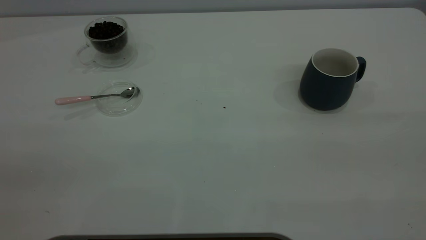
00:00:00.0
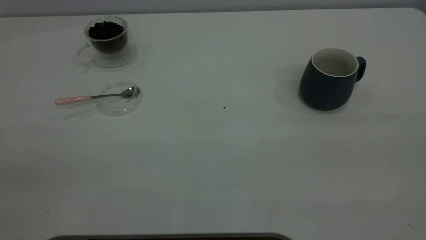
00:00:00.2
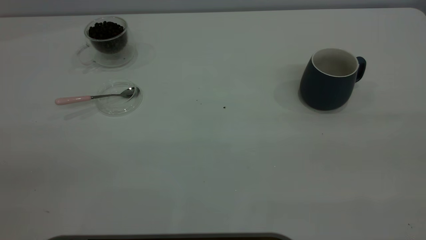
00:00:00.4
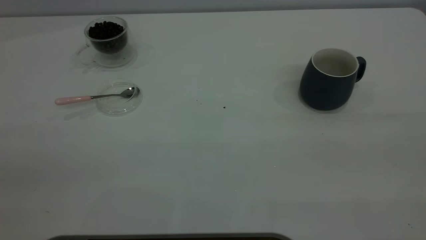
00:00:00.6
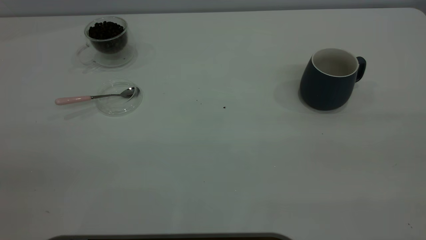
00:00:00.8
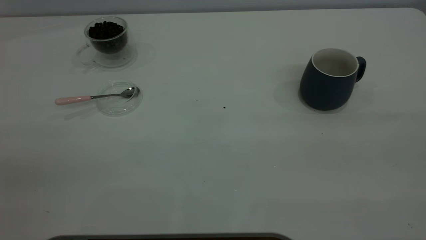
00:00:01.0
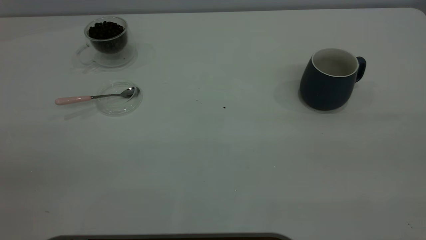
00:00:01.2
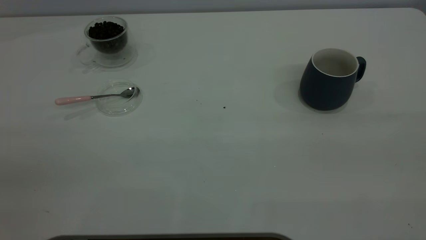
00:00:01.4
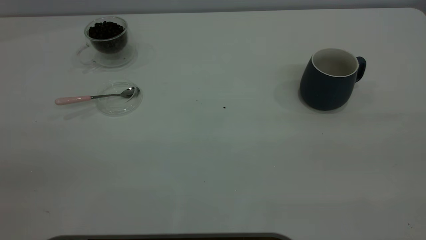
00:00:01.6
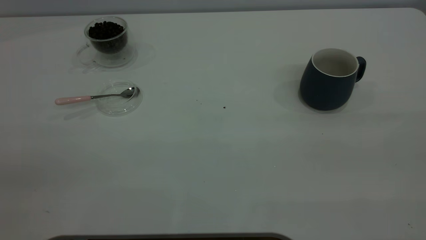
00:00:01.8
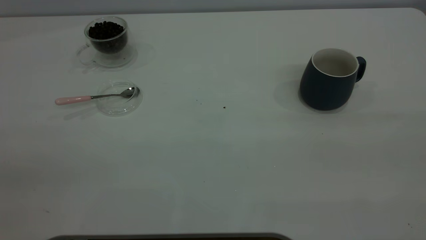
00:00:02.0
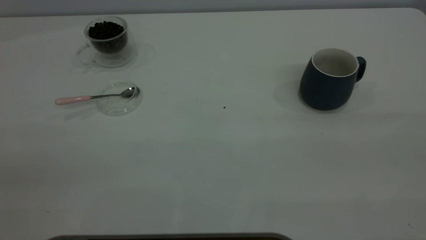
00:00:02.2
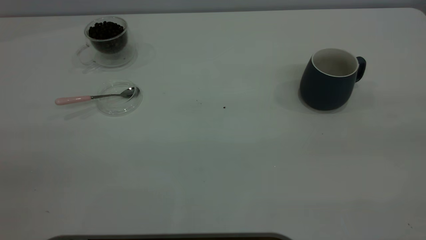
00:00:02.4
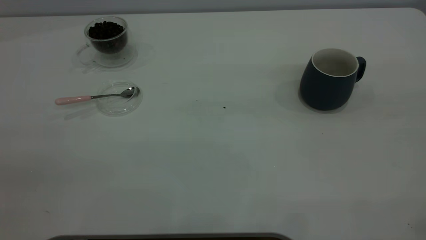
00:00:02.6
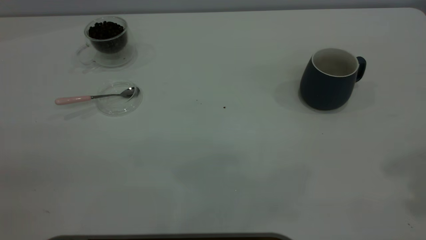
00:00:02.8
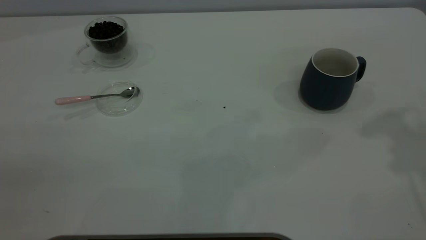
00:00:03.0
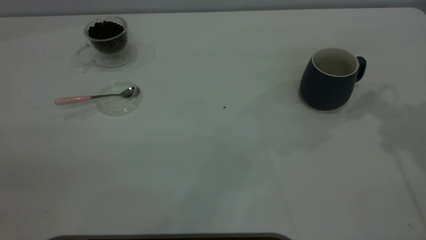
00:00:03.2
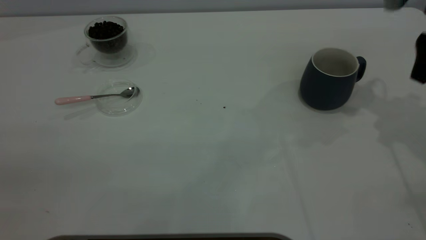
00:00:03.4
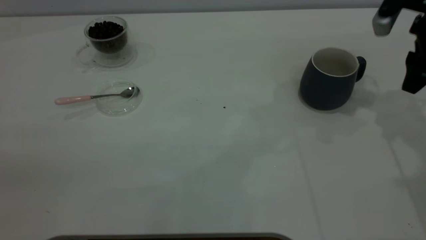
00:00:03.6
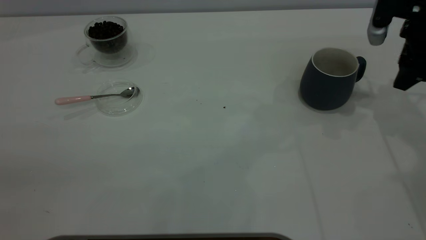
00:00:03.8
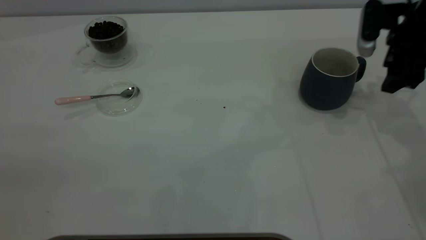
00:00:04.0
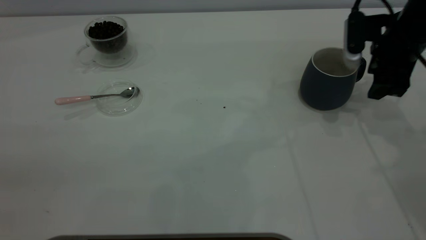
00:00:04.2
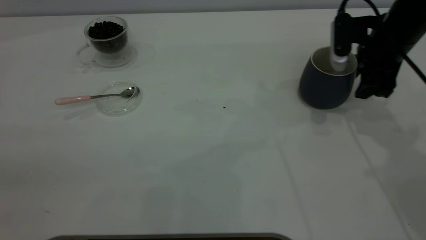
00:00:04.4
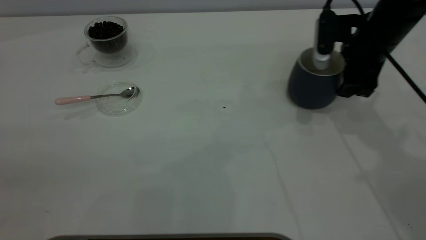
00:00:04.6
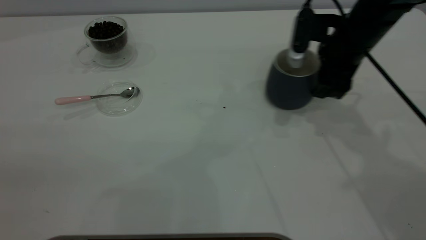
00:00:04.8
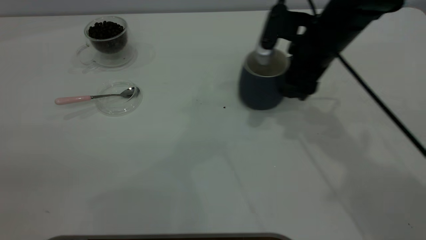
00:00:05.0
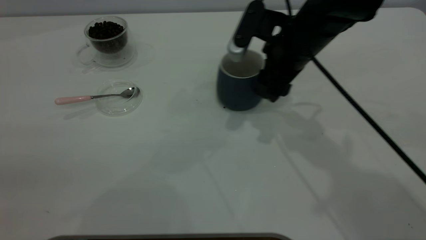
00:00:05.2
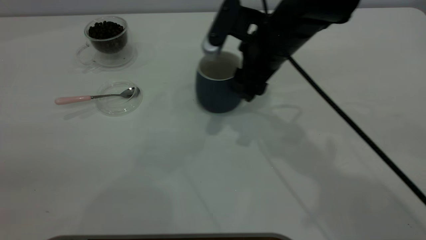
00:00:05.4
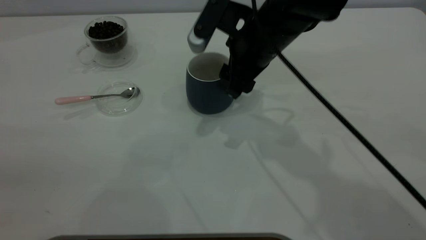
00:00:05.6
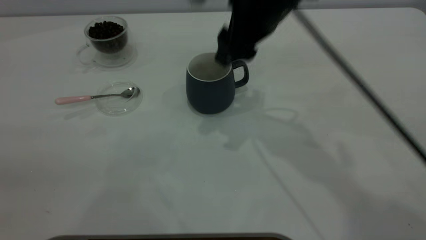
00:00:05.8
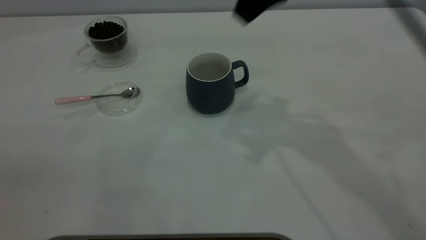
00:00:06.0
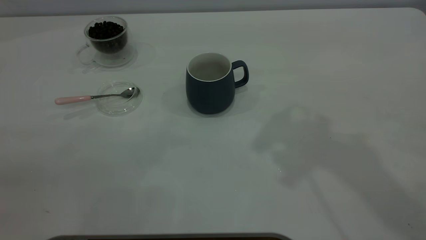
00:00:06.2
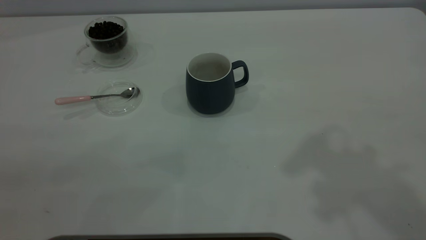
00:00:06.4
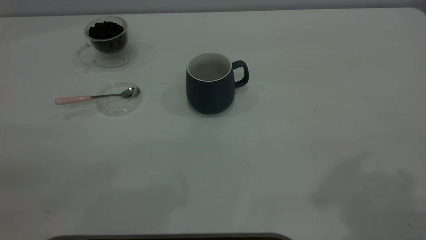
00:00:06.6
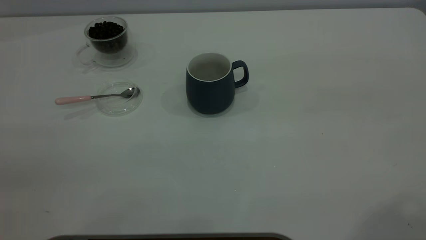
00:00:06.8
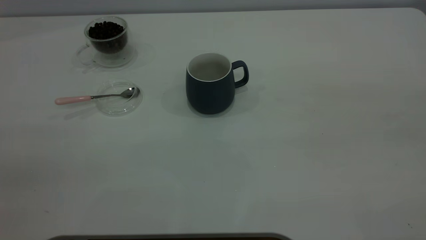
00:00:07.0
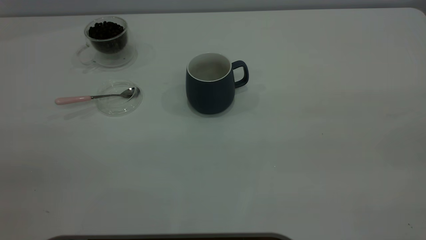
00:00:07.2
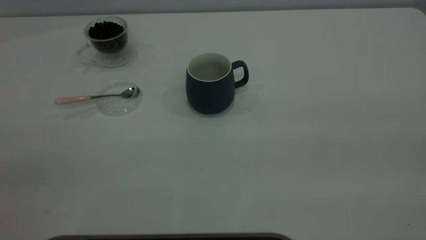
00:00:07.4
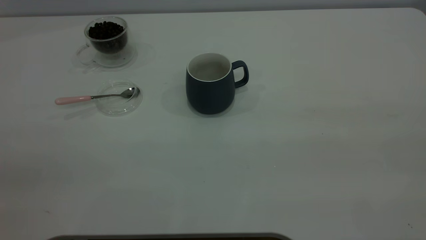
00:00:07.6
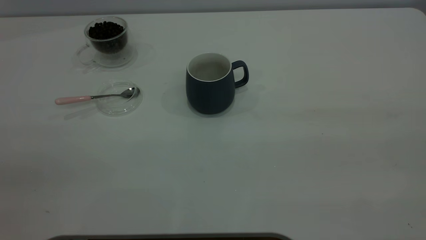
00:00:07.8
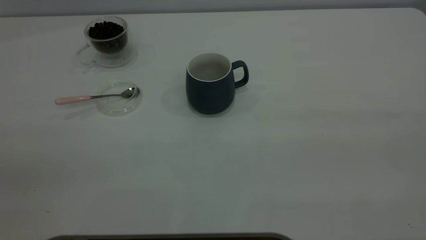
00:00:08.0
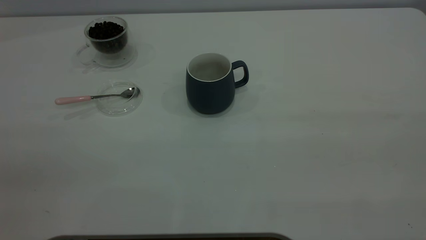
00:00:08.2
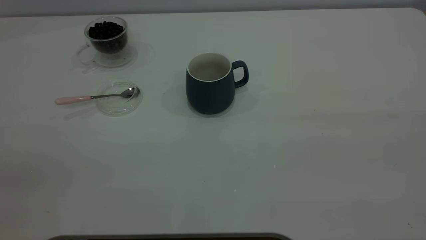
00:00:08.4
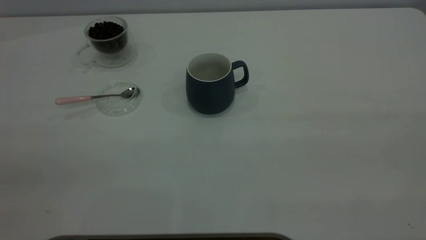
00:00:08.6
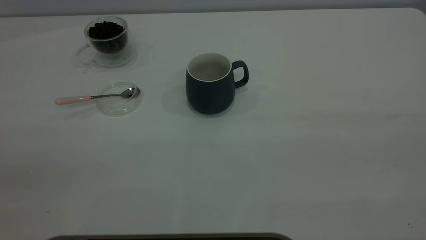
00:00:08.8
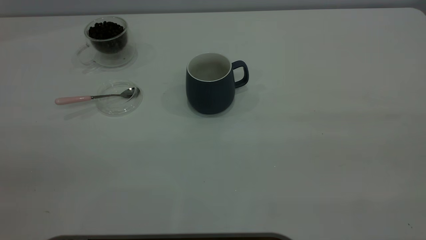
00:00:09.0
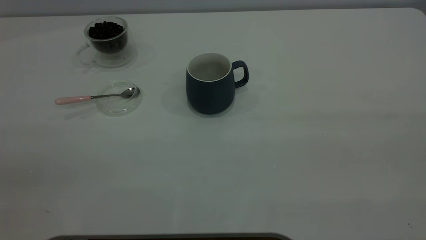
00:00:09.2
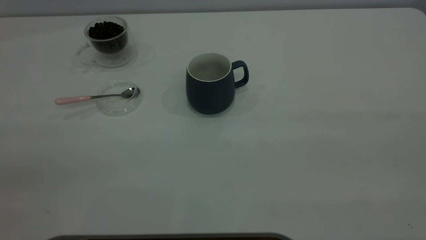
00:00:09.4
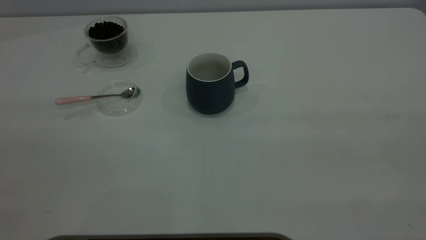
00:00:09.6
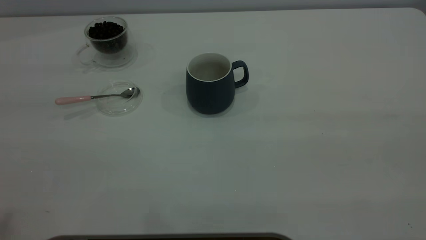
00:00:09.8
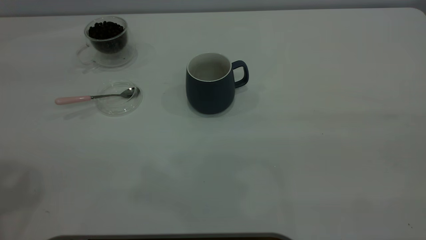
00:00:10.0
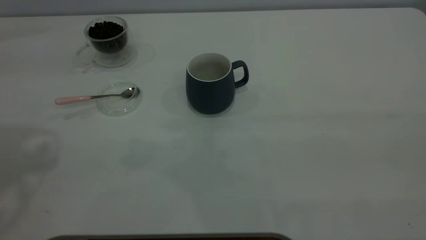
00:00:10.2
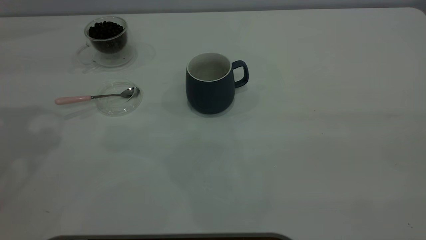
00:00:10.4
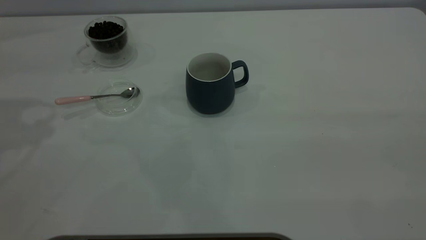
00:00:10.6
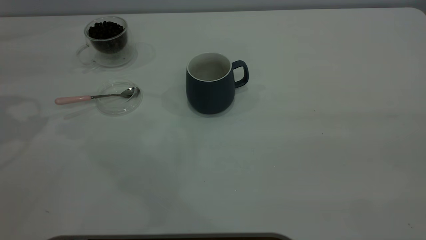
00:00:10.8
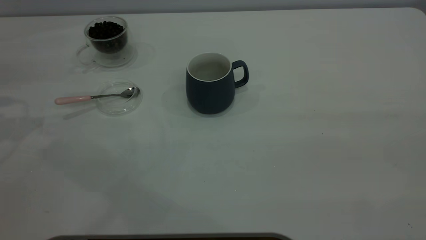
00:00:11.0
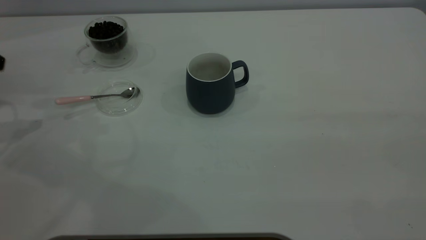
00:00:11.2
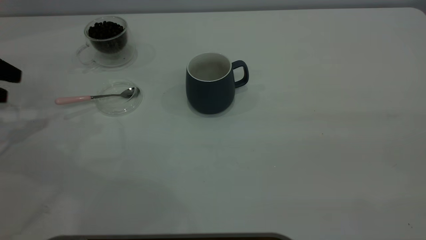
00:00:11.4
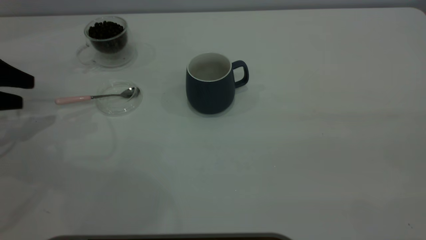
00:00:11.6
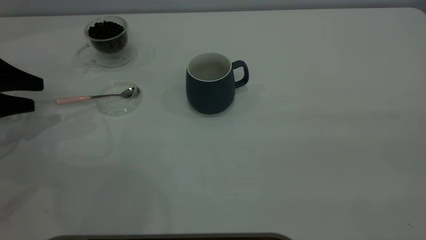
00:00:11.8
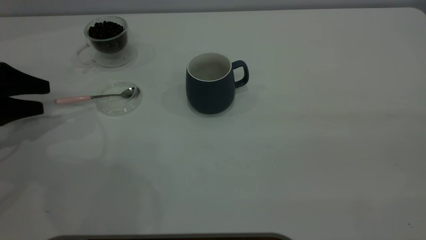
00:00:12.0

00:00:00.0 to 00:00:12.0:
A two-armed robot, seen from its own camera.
Task of the whole recording: the right gripper place the grey cup in the center of the table, the left gripper take the pink spoon from the cup lid and scoop out the coffee beans from the coffee cup and put them into the grey cup, the left gripper put the spoon back into the cup lid.
Step, 00:00:00.0 to 00:00:05.8: Move the cup to the center of view.
00:00:00.0 to 00:00:01.6: Neither gripper changes place.
00:00:03.0 to 00:00:04.4: The right gripper moves downward and forward, some 20 cm.
00:00:04.4 to 00:00:06.0: The right gripper heads upward and to the left, covering about 25 cm.
00:00:06.0 to 00:00:07.6: The right gripper goes roughly 35 cm backward and to the right.
00:00:10.4 to 00:00:12.0: The left gripper heads downward, covering some 25 cm.

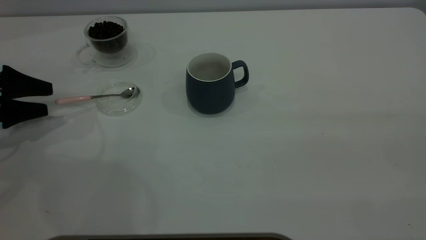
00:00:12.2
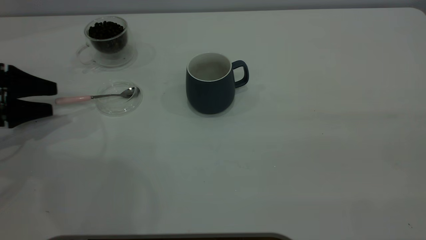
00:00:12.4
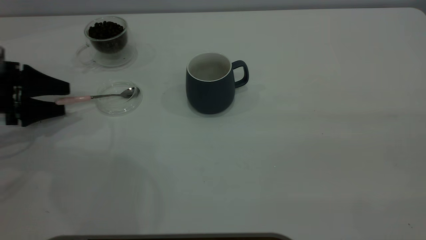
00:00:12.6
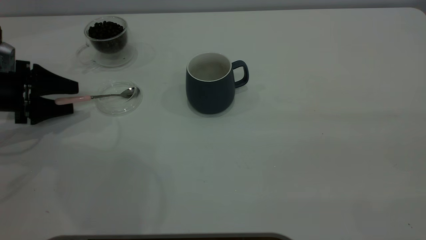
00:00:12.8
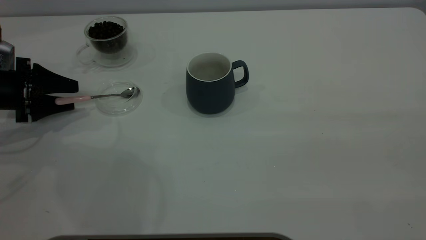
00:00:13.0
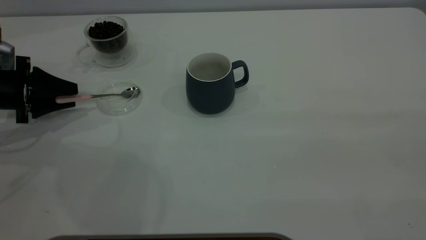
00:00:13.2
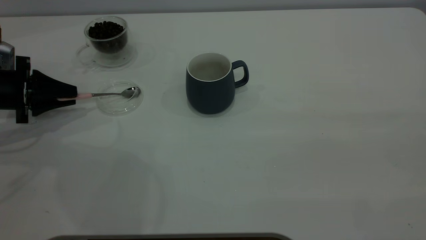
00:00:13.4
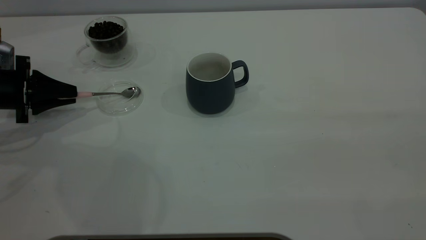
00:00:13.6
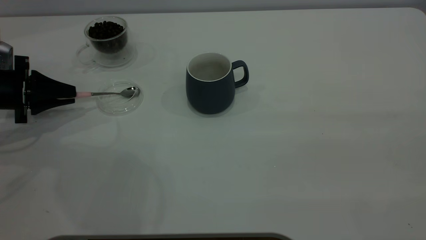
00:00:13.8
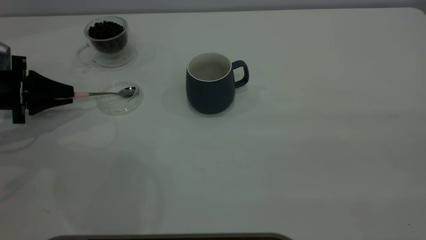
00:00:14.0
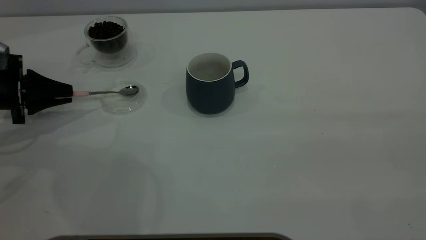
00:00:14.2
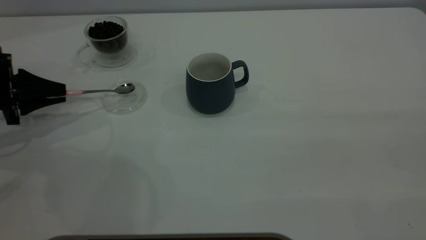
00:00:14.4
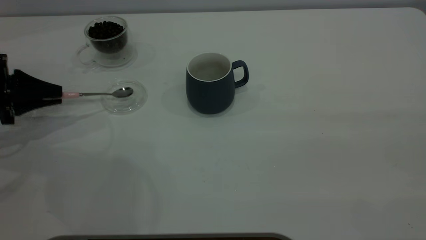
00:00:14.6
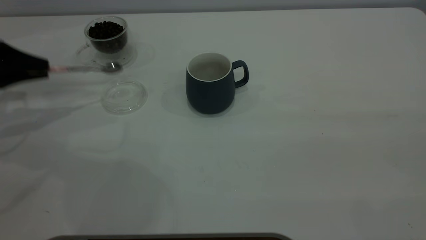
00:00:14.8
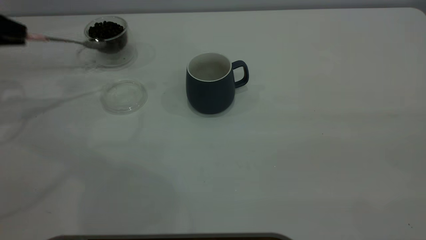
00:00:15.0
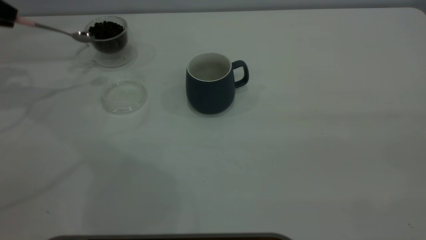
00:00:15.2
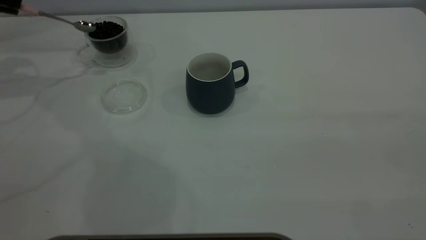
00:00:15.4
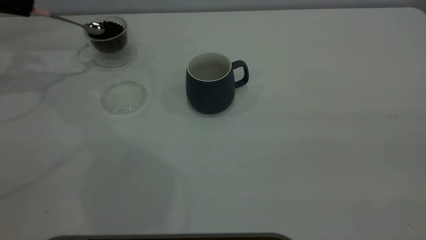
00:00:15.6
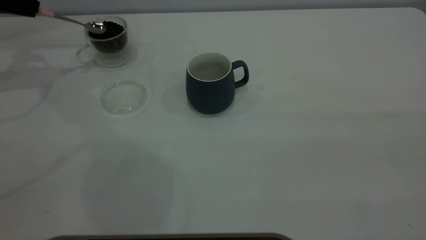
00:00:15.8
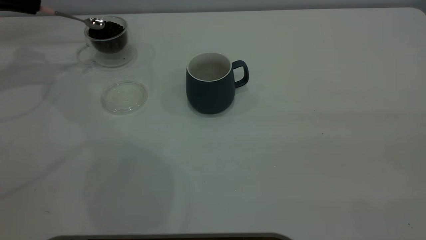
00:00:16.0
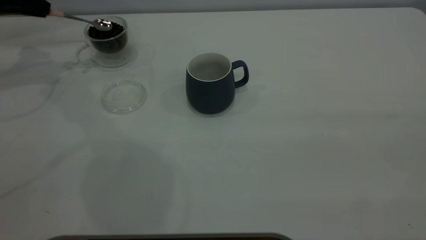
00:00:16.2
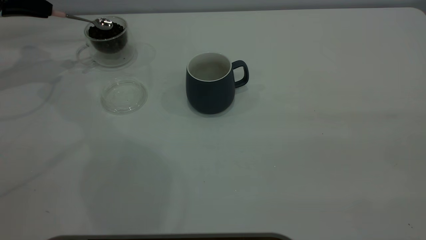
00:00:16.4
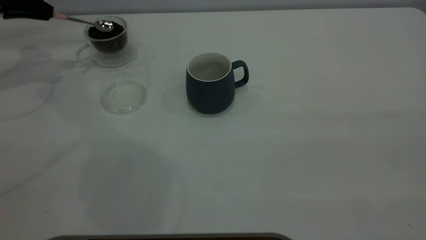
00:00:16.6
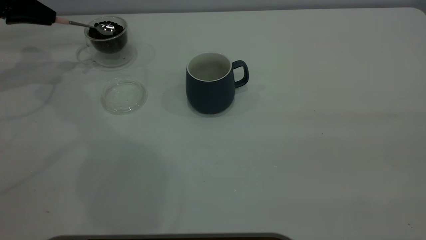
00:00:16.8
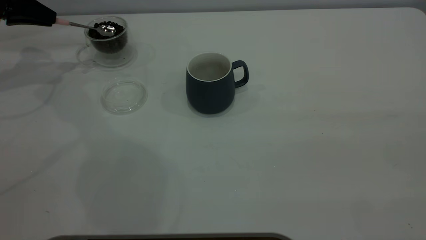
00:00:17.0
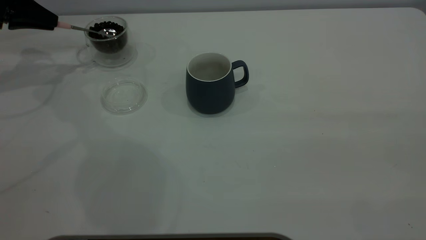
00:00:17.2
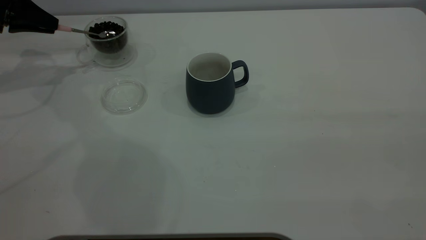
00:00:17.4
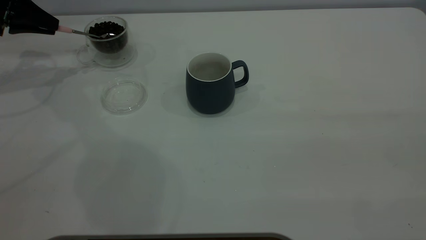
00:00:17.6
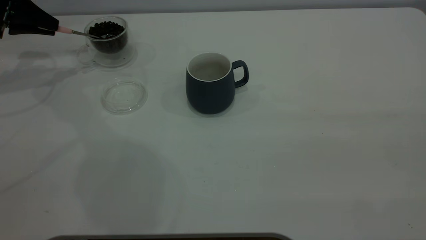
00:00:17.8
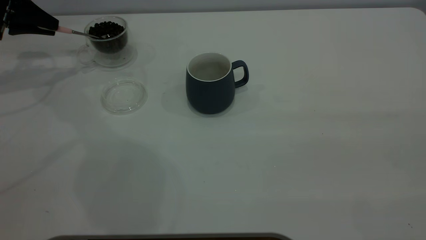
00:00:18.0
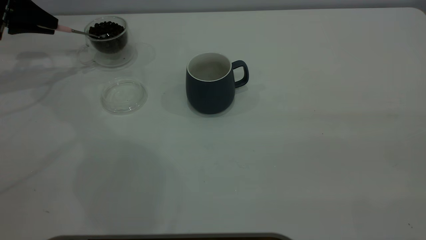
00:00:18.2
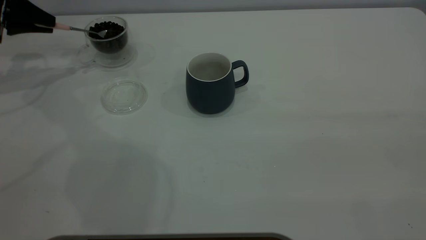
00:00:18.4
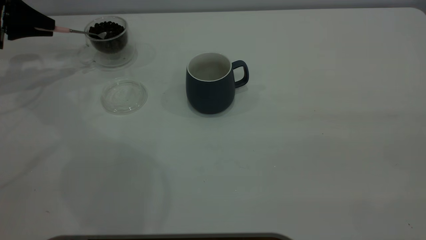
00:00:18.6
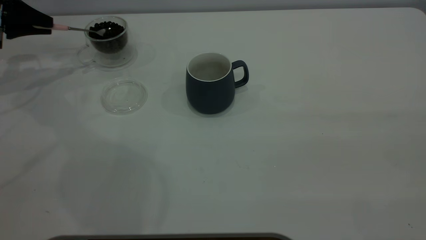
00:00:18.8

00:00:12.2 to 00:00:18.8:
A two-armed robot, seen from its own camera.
Task of the whole recording: the right gripper place the grey cup in the center of the table, the left gripper take the pink spoon from the cup lid and scoop out the coffee beans from the coffee cup and put them into the grey cup, the left gripper put the spoon back into the cup lid.
Step, 00:00:12.2 to 00:00:14.8: Pick up the spoon.
00:00:12.2 to 00:00:13.8: The left gripper closes up.
00:00:13.8 to 00:00:15.4: The left gripper moves upward and forward, roughly 20 cm.
00:00:15.4 to 00:00:17.2: The left gripper travels downward by approximately 5 cm.
